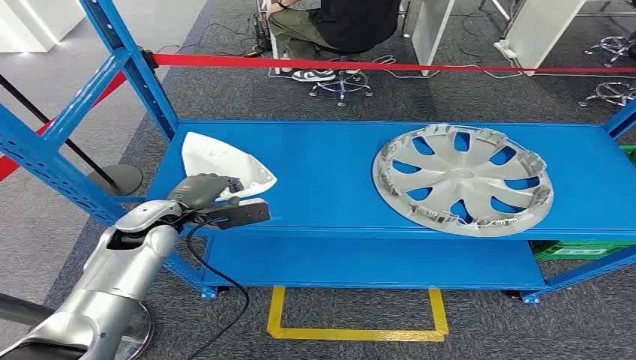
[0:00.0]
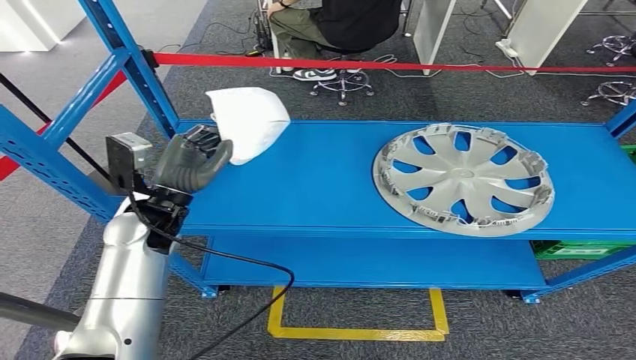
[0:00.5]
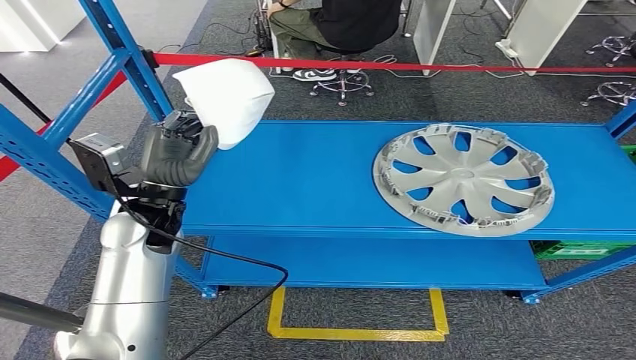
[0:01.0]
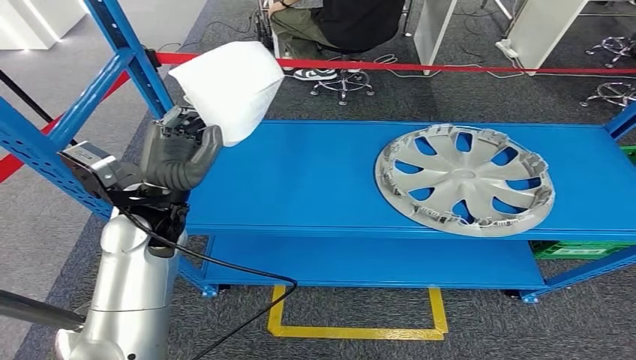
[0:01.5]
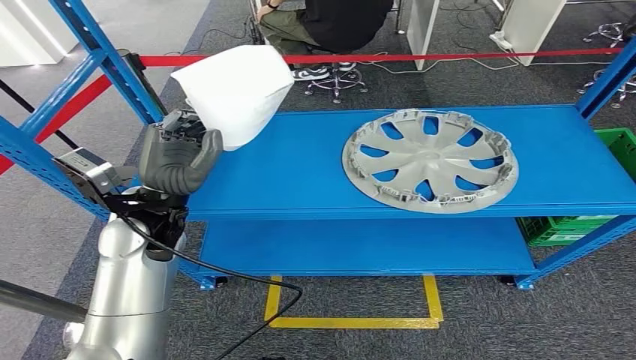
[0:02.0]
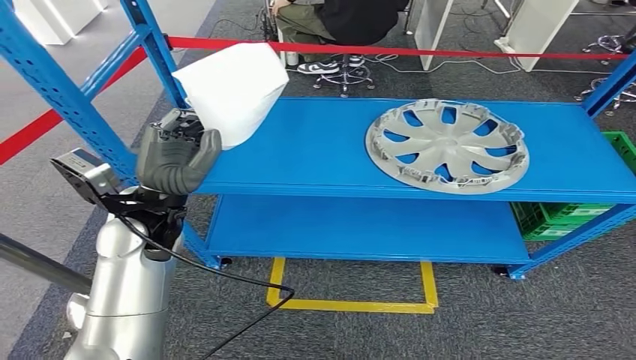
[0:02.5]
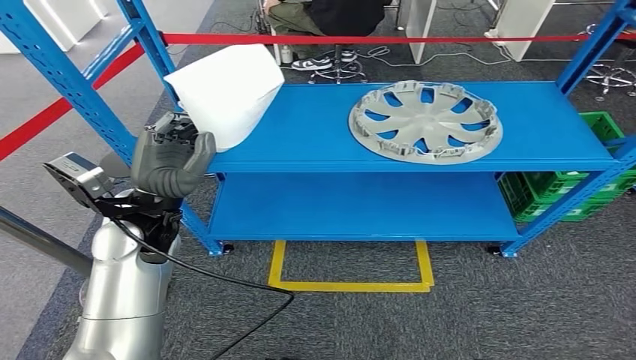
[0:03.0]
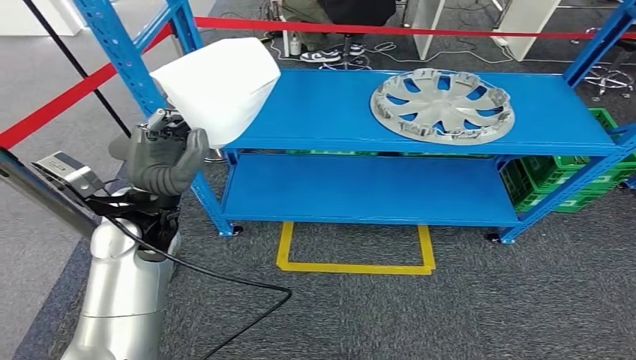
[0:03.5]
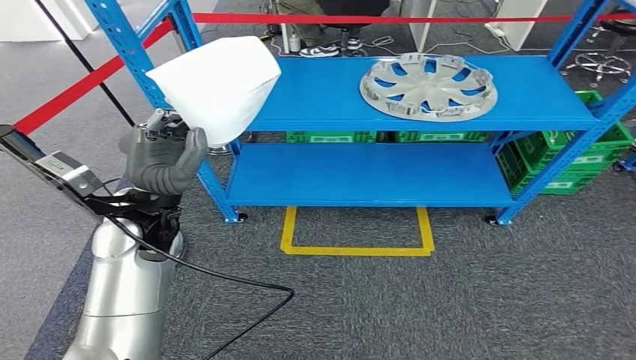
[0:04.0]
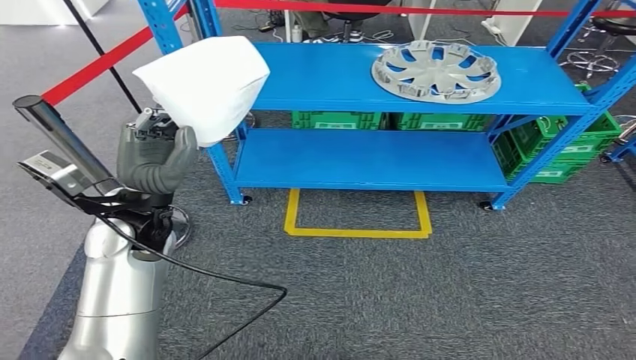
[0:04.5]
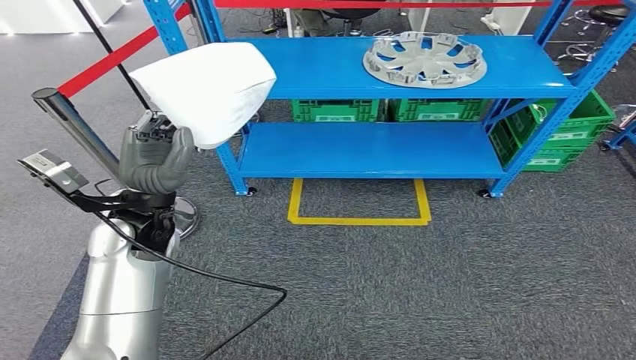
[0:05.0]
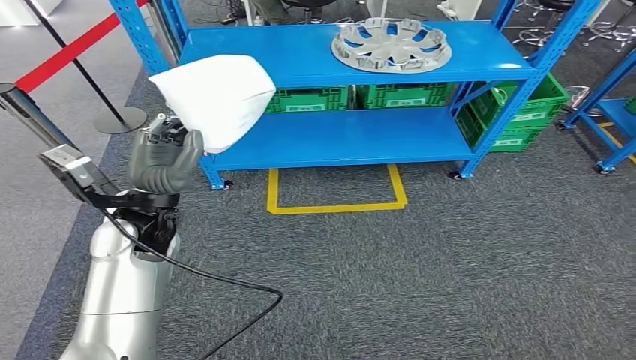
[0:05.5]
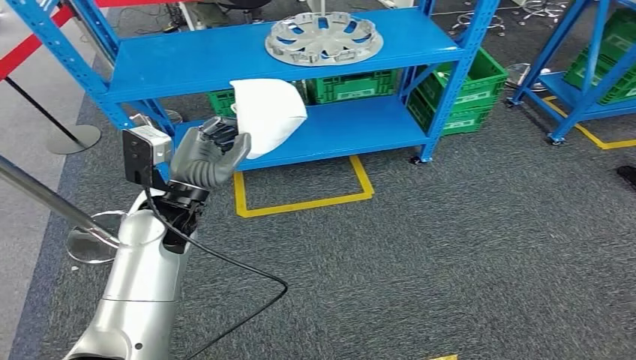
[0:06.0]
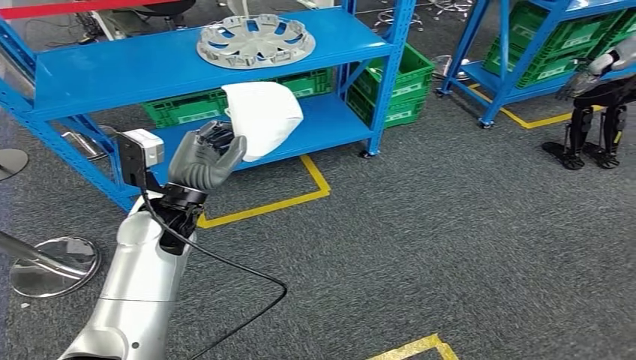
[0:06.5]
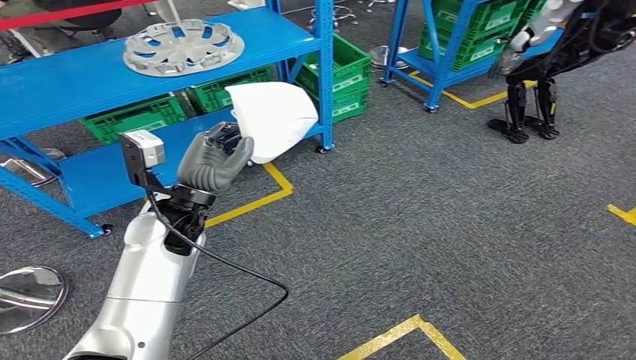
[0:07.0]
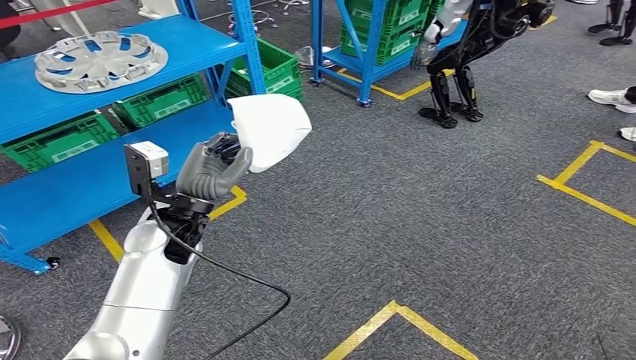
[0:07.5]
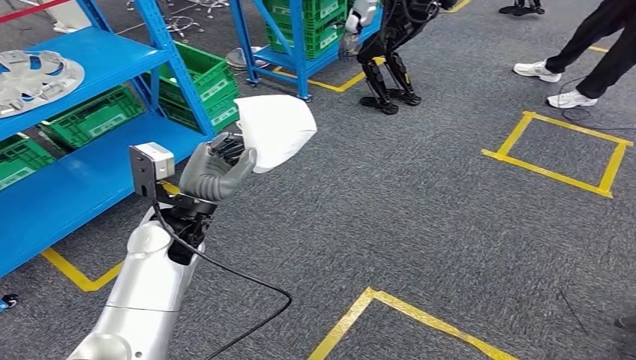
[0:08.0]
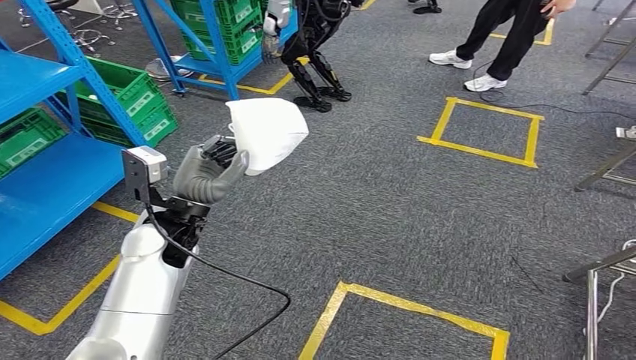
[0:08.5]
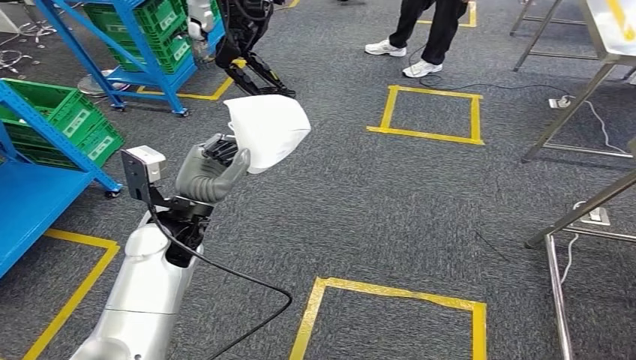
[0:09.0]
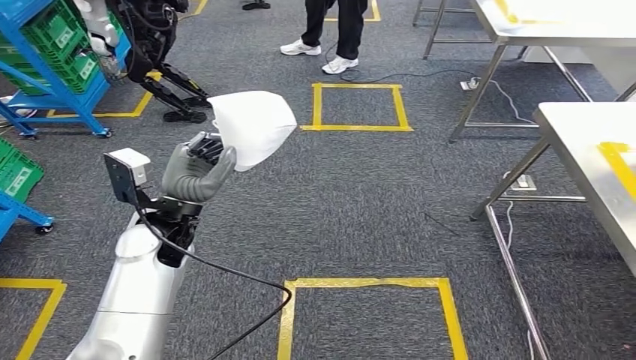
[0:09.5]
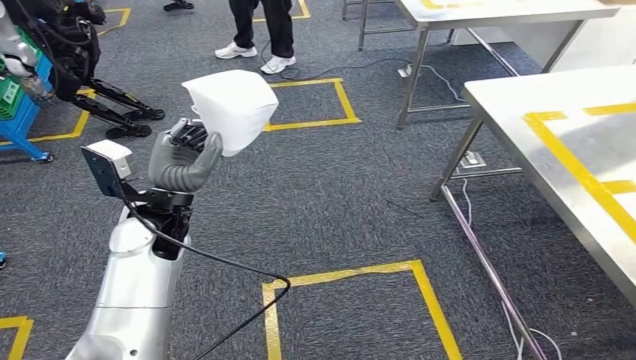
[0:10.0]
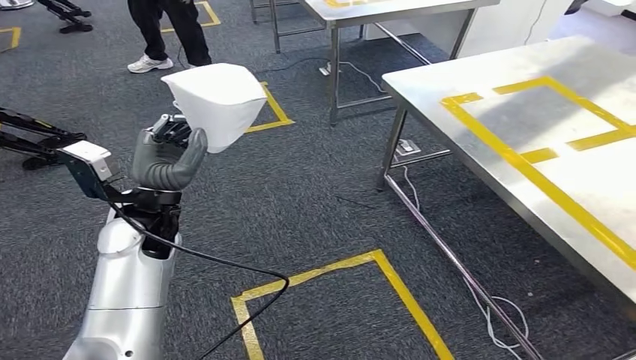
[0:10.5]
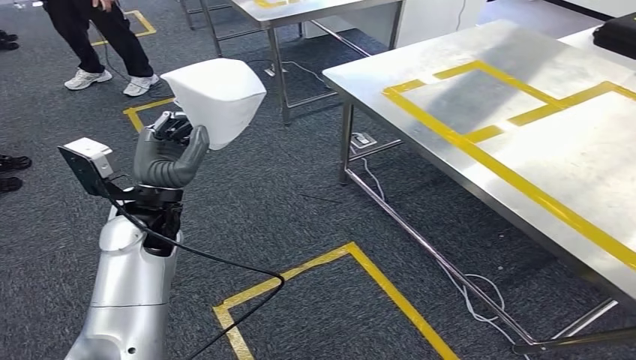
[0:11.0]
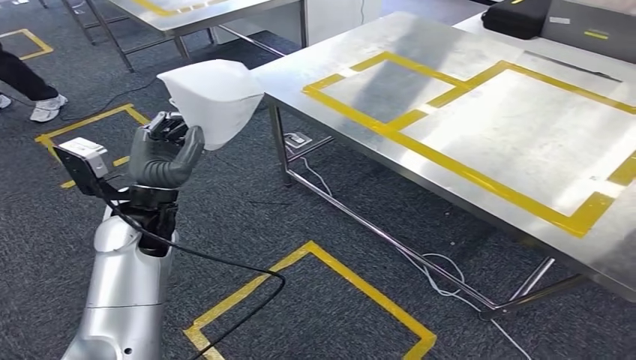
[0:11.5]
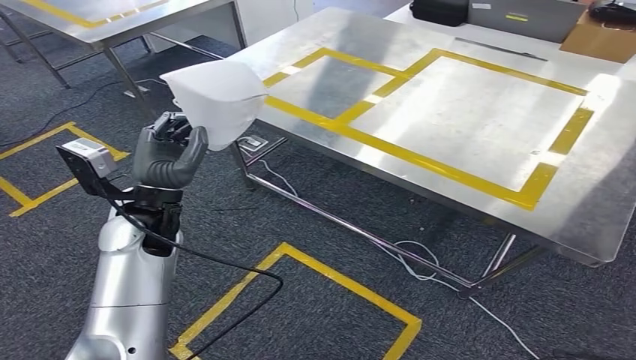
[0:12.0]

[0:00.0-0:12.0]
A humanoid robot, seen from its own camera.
Step, 0:00.0 to 0:02.5: Take small components from the rack.

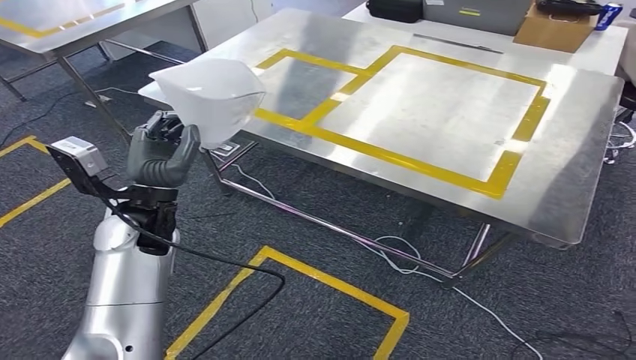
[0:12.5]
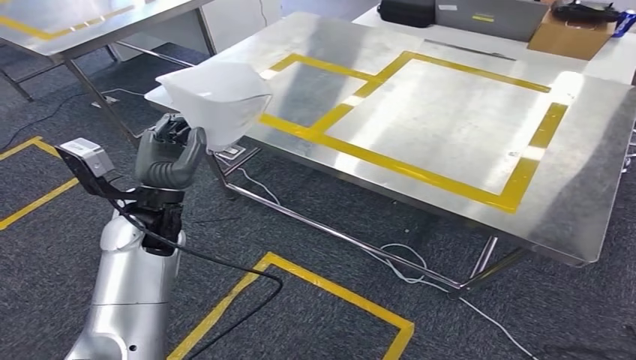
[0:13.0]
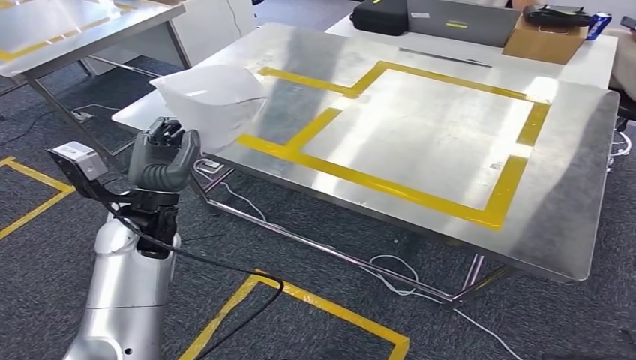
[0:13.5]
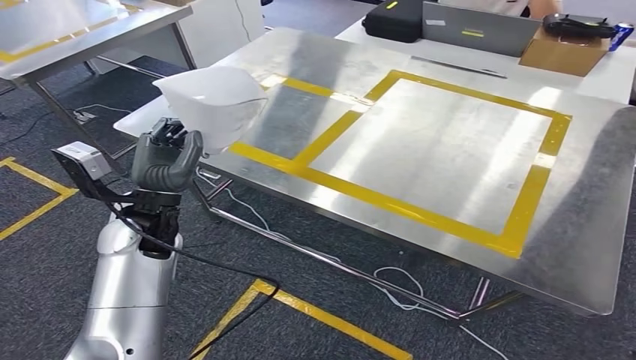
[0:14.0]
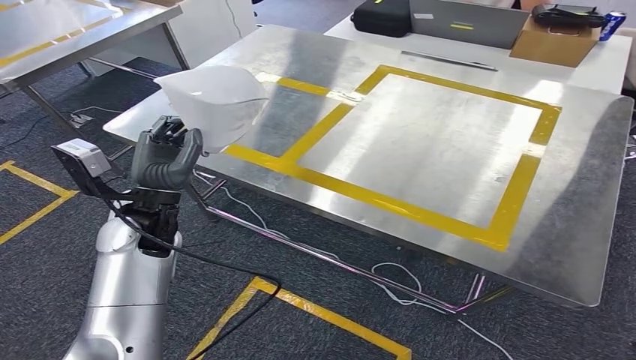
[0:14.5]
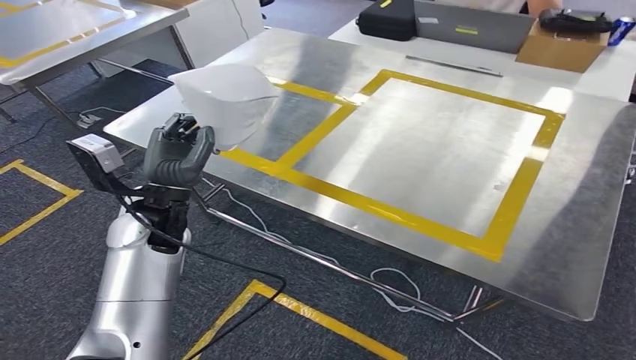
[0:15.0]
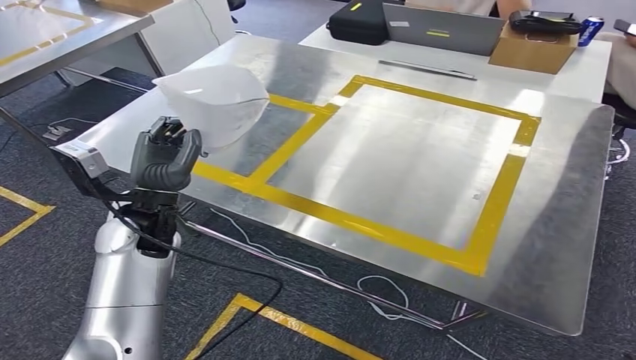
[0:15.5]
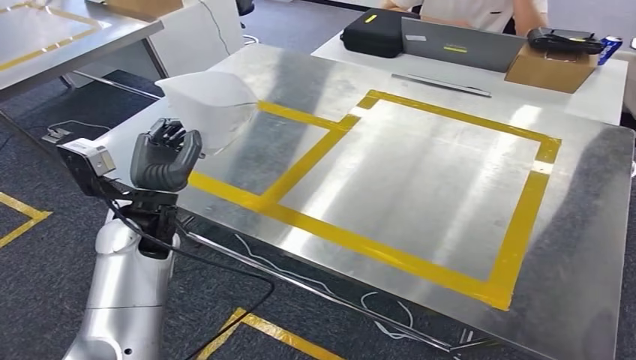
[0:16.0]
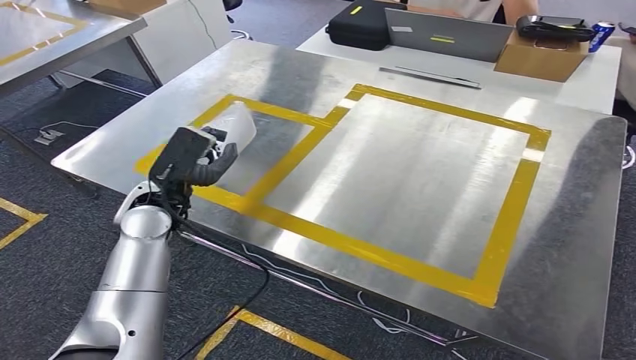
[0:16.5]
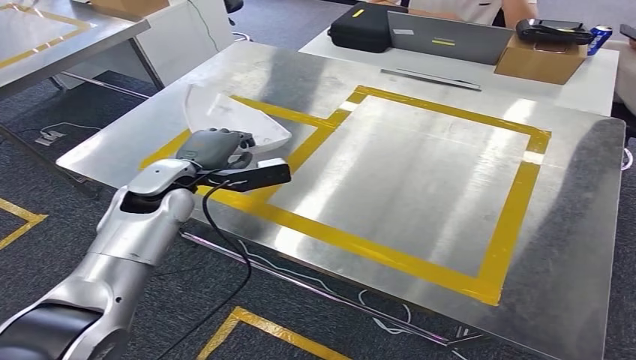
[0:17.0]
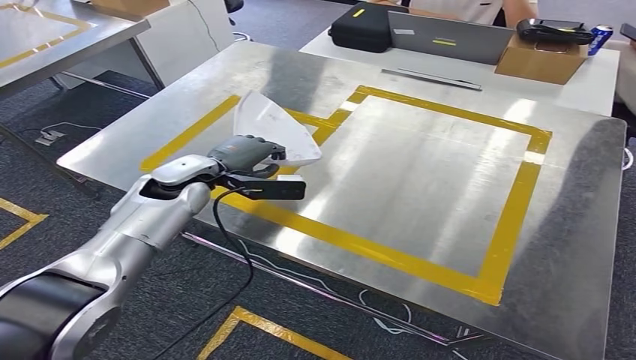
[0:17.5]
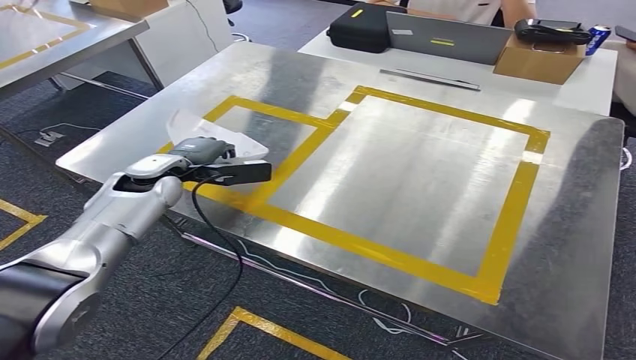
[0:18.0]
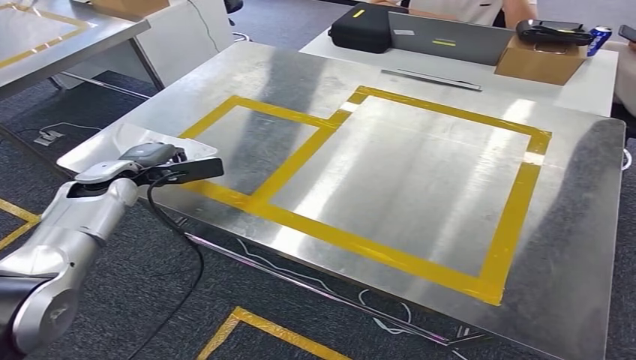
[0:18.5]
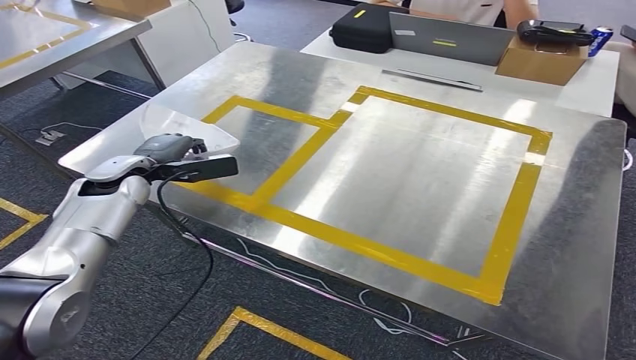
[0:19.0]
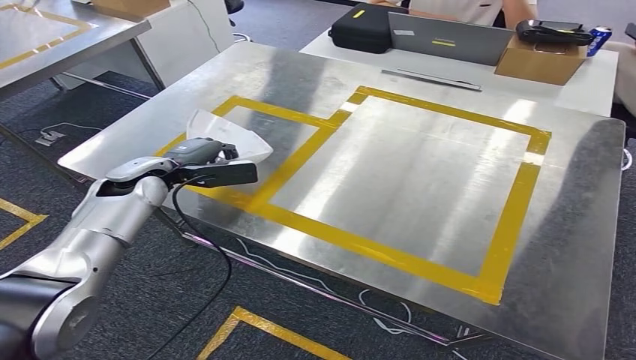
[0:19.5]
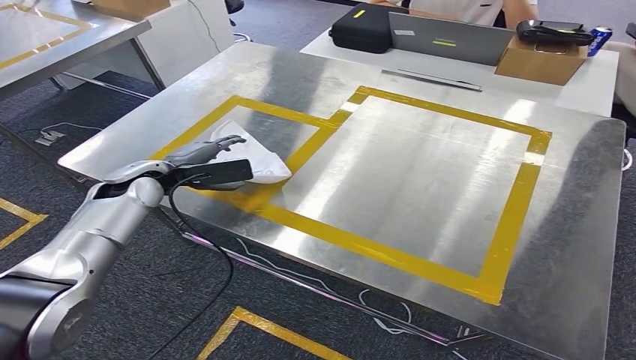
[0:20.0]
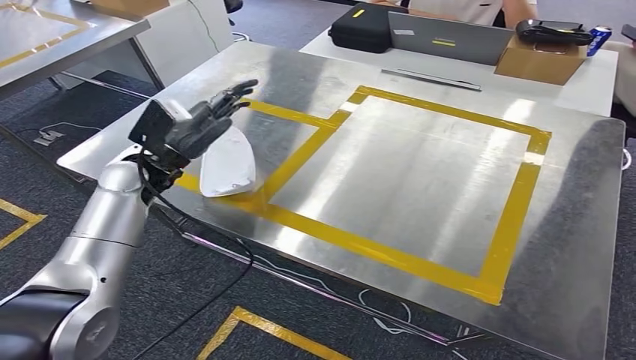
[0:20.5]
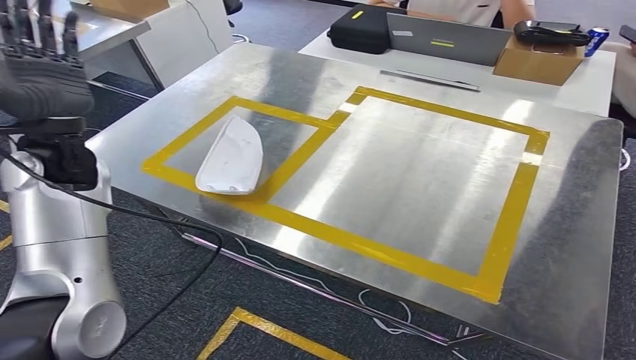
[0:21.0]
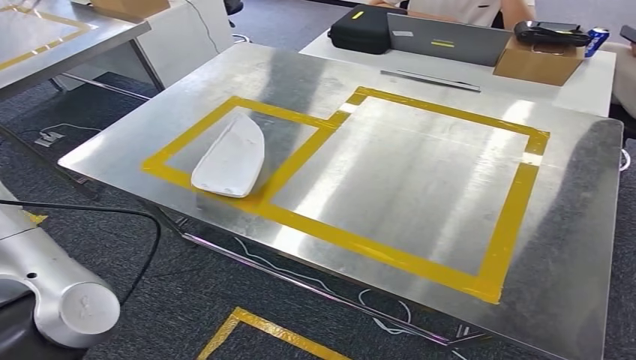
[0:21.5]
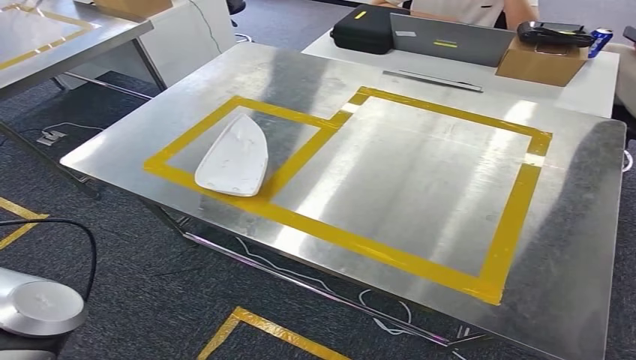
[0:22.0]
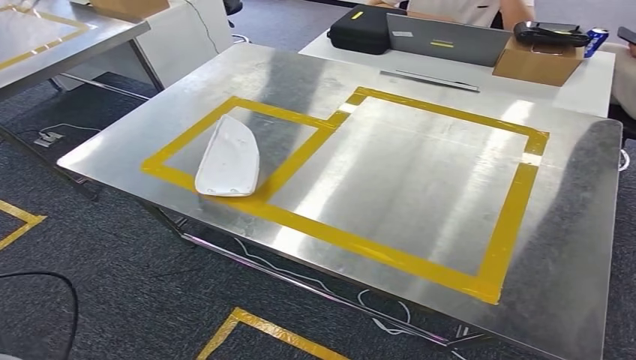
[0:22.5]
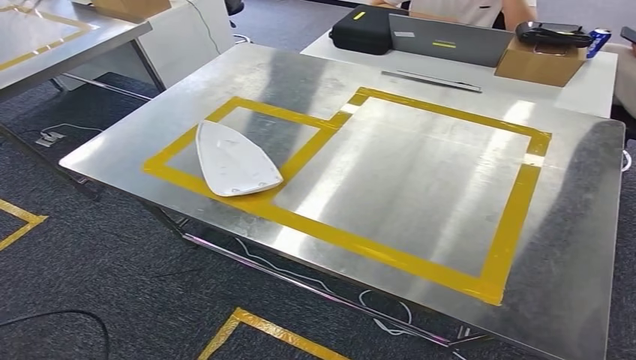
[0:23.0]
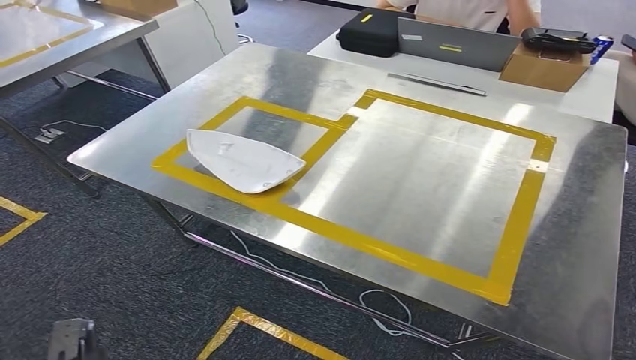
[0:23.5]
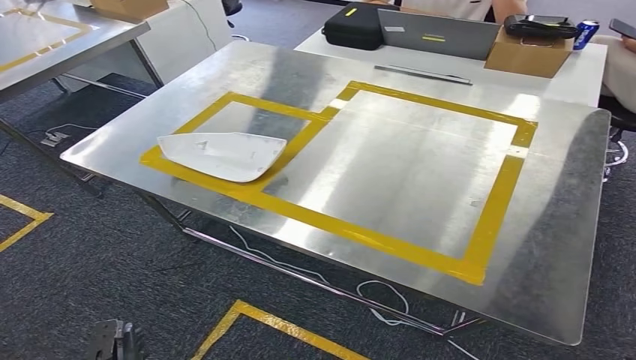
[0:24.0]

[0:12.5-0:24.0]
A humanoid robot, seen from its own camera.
Step, 0:13.5 to 0:21.5: Insert the small parts into the corresponding holes on the workbench.
0:20.0 to 0:22.0: The left hand shifts some 35 cm to the left, backward and upward.
